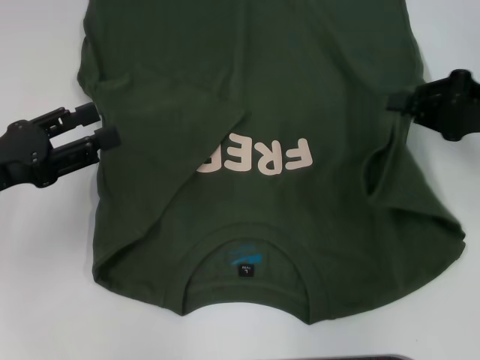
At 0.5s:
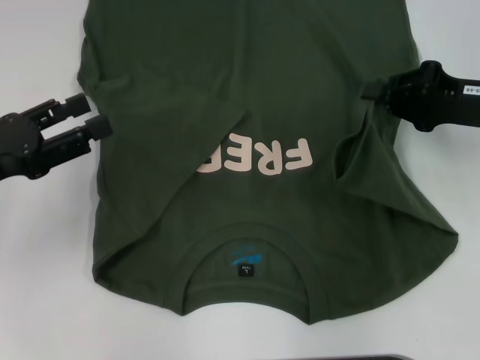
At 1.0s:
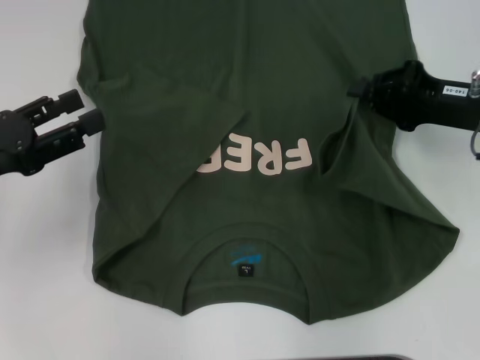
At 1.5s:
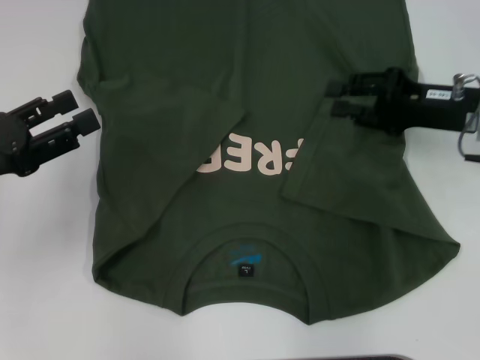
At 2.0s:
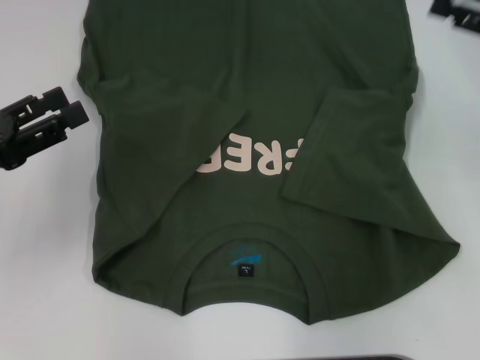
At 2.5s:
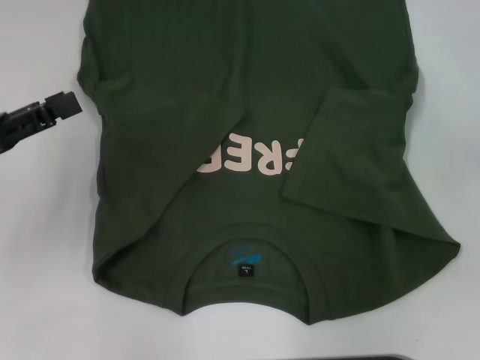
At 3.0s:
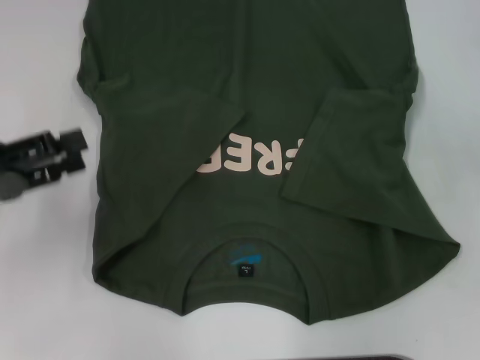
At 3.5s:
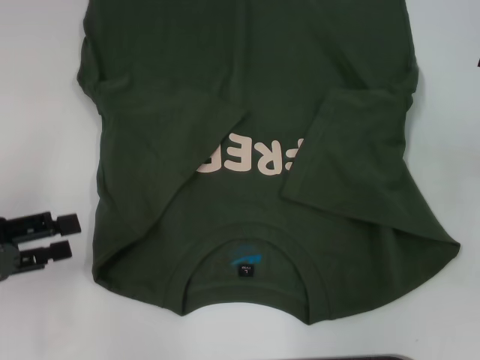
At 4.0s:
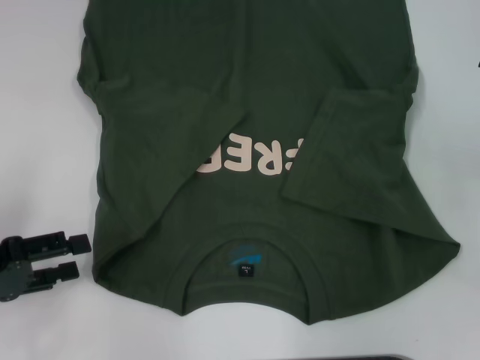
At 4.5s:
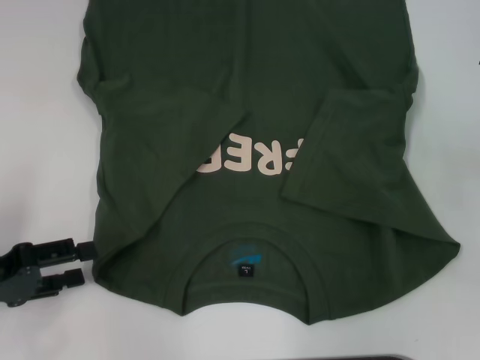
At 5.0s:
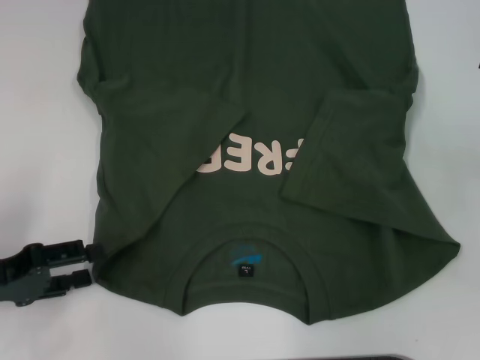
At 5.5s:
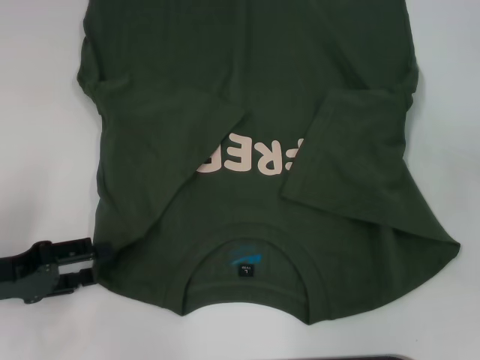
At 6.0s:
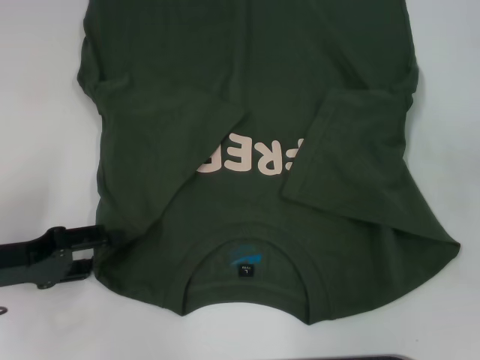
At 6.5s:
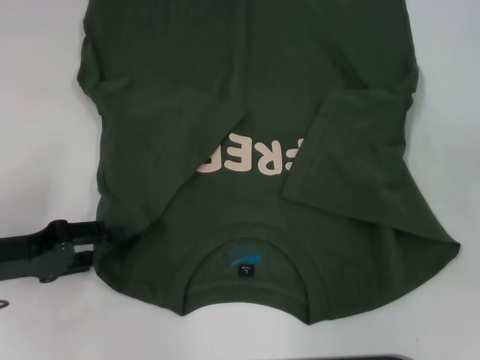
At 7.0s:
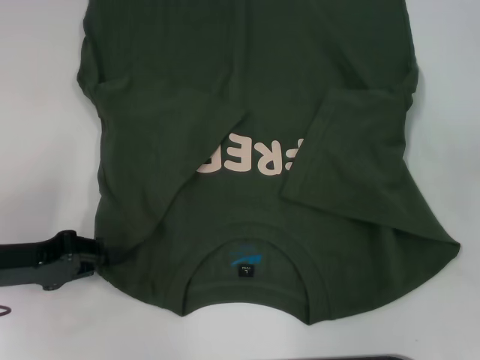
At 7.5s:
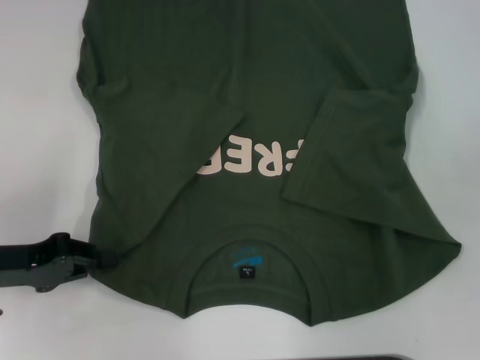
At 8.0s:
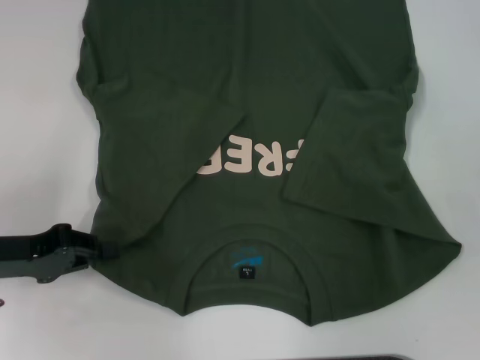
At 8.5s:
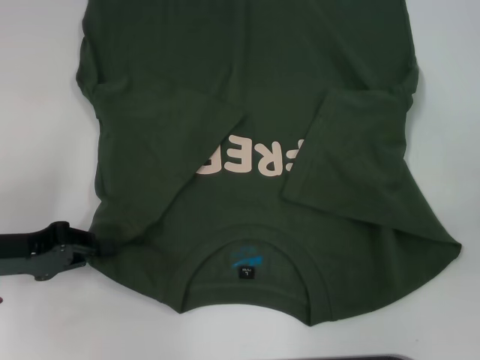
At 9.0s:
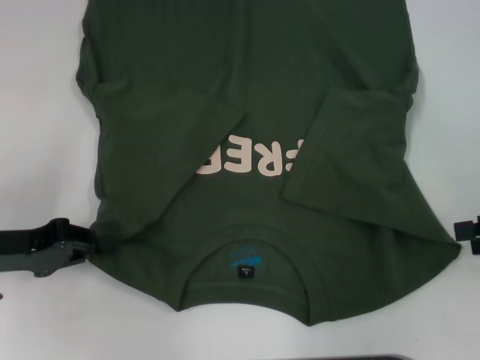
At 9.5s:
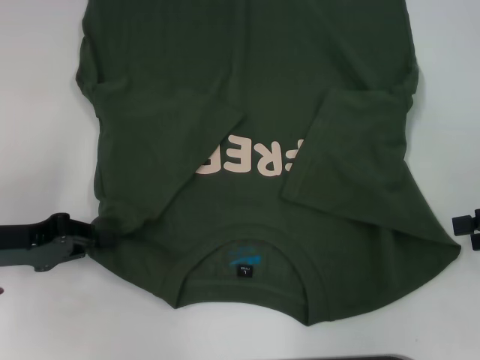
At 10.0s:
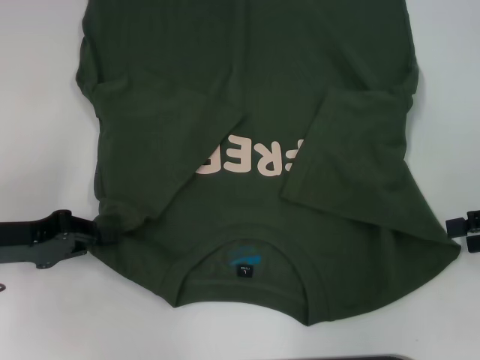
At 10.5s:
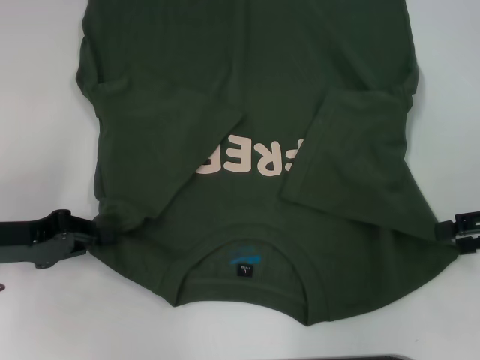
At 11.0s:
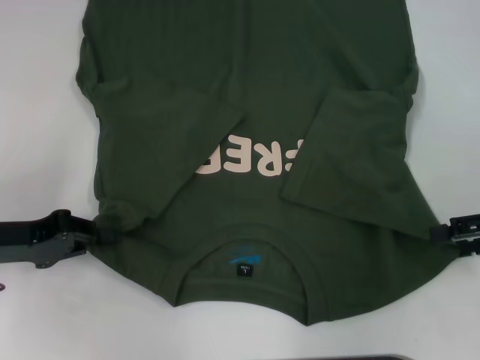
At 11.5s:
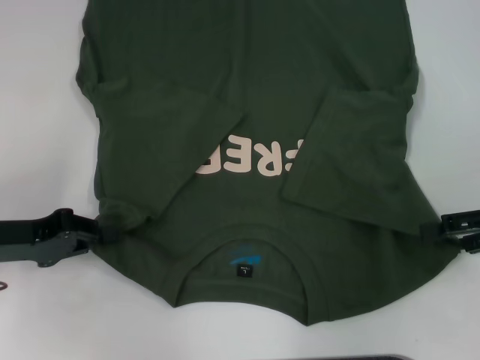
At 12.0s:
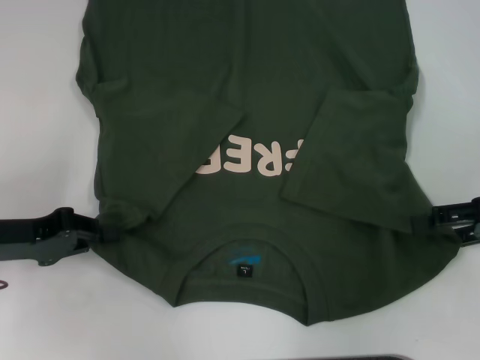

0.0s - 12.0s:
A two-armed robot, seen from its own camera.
Step, 1.5s - 7.5s: Grab the bottom left corner with your left hand.
0.0s - 2.0s: The right gripper opens up.
2.0s - 4.0s: The right gripper changes place by approximately 5 cm, and opens its fingers, while the left gripper moves about 5 cm.
4.0s - 6.0s: There are only small adjustments of the grippers.
6.0s - 8.0s: The left gripper closes up. The right gripper shifts by roughly 5 cm.
8.0s - 10.0s: The right gripper shifts approximately 5 cm downward.
10.0s - 12.0s: The grippers stay close to where they were, moving slightly.

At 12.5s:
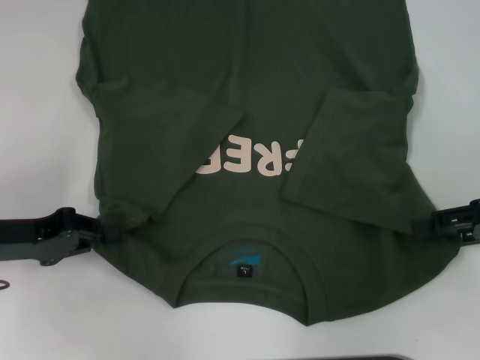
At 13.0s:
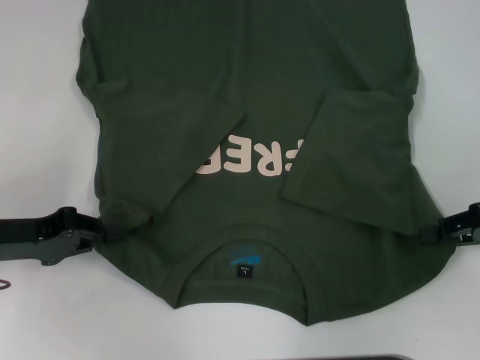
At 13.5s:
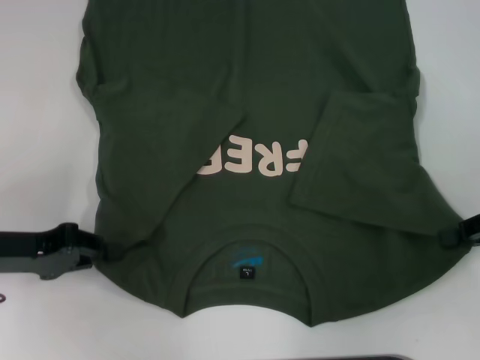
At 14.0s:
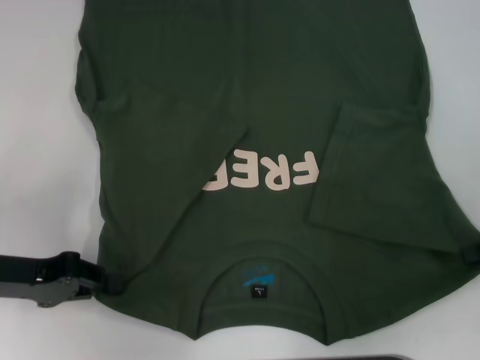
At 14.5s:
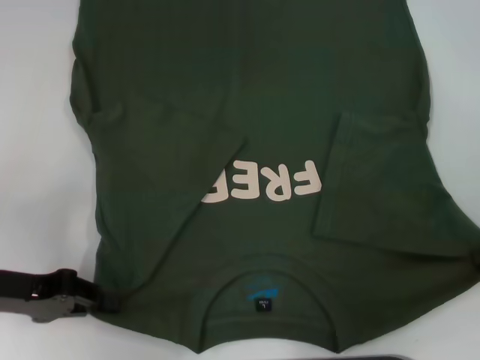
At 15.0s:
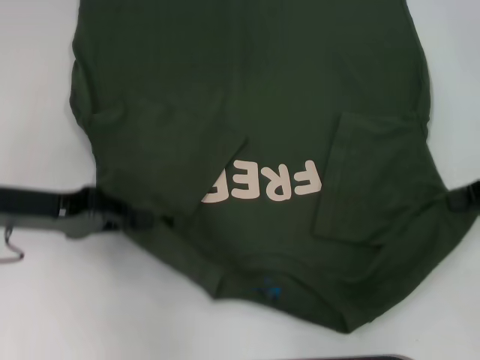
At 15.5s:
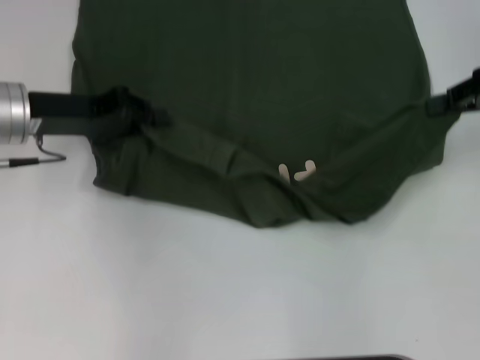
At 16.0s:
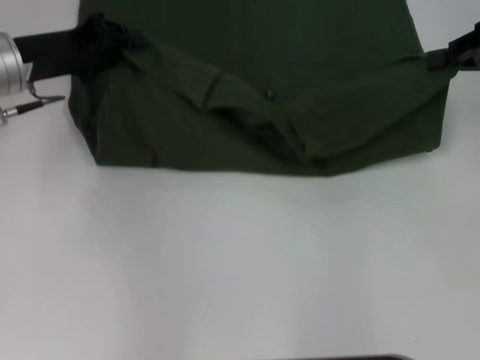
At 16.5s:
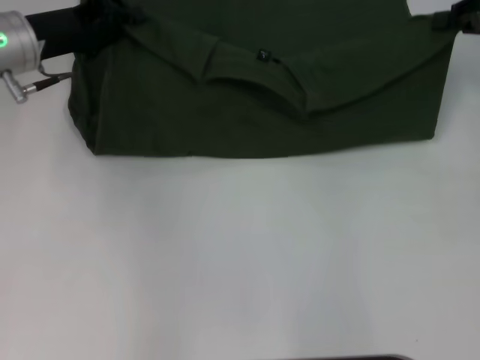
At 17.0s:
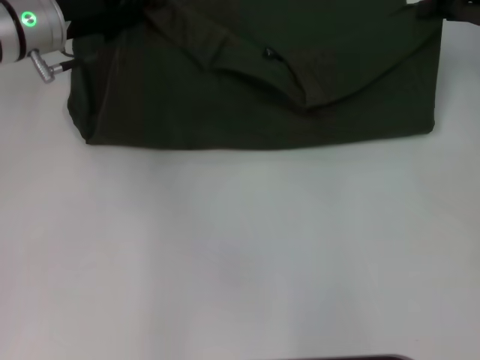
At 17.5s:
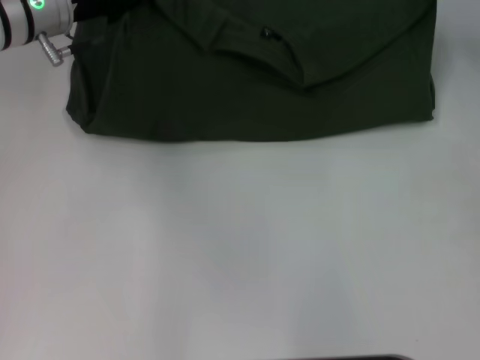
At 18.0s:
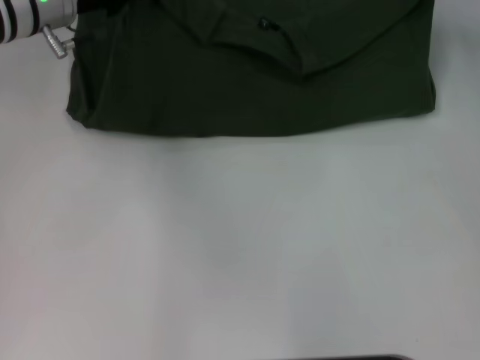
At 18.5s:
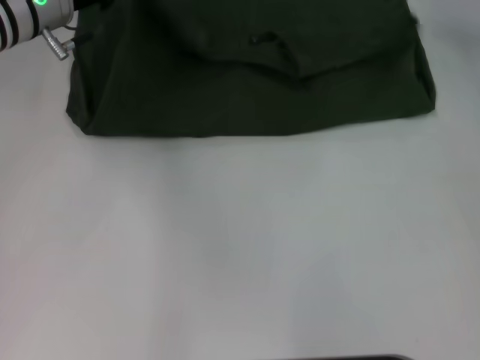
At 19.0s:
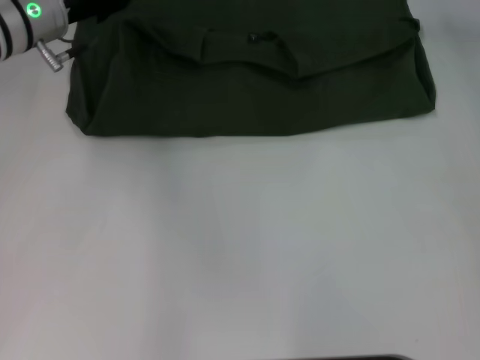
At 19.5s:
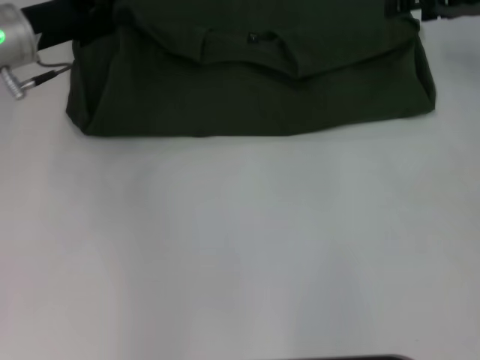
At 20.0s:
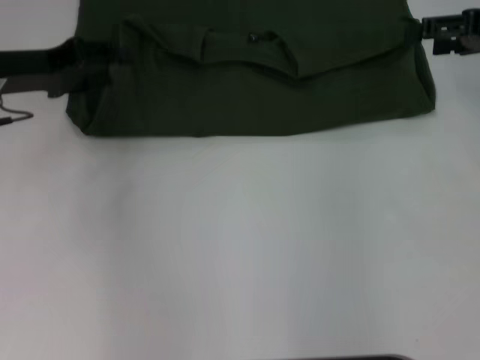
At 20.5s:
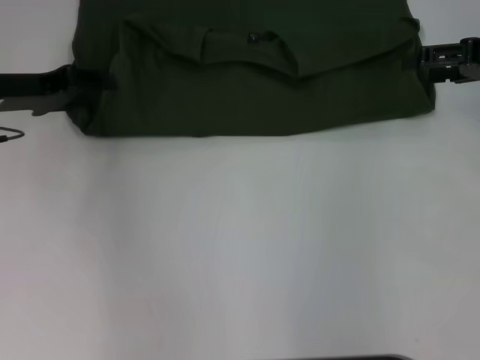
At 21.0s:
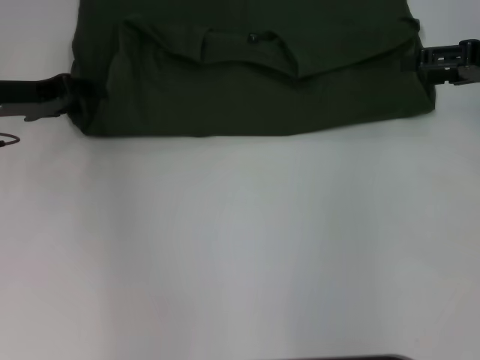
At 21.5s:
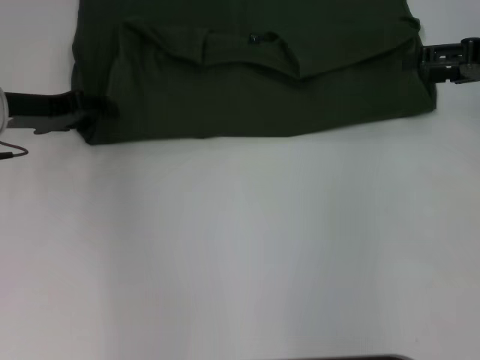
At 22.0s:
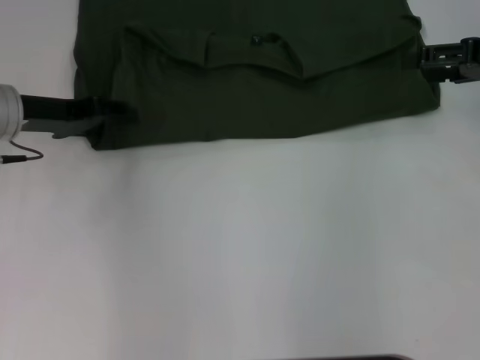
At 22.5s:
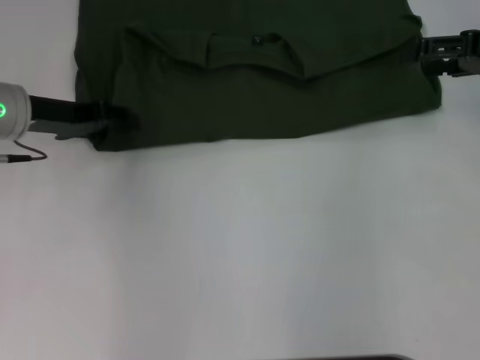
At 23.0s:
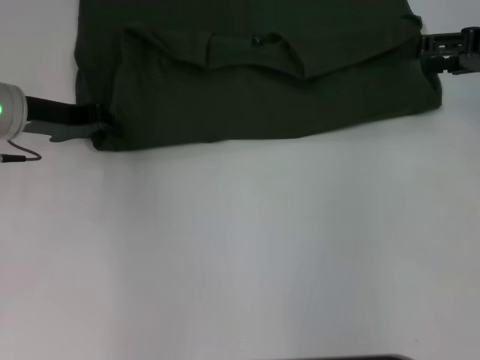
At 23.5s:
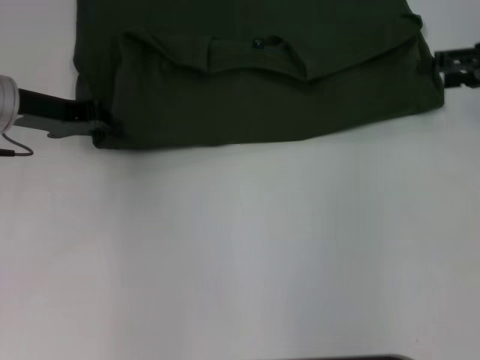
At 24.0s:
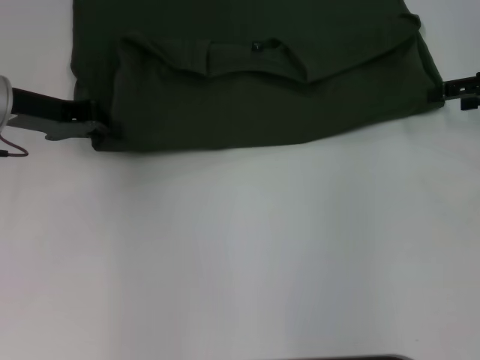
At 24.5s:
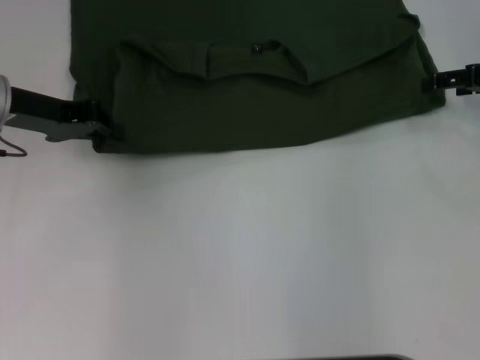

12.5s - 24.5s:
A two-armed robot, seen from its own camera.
Step, 13.5s - 18.5s: Fold the clothes with your left hand.
Step, 13.5s - 18.5s: Fold the clothes with your right hand.
12.5s - 14.5s: The right gripper closes up.
14.5s - 16.5s: The right gripper travels forward and upward by roughly 15 cm. The left gripper heads forward, covering about 15 cm.
16.5s - 18.5s: The left gripper changes place by roughly 5 cm. The right gripper heads forward, covering some 5 cm.
18.5s - 20.5s: The right gripper goes roughly 10 cm backward, and opens up; the left gripper goes about 10 cm to the left and backward, and opens up.
20.5s - 22.5s: The grippers stay close to where they were, moving slightly.
22.5s - 24.5s: The left gripper closes up.

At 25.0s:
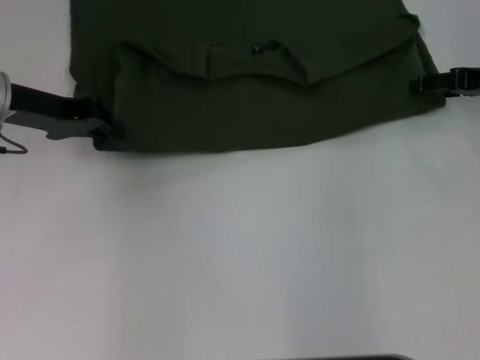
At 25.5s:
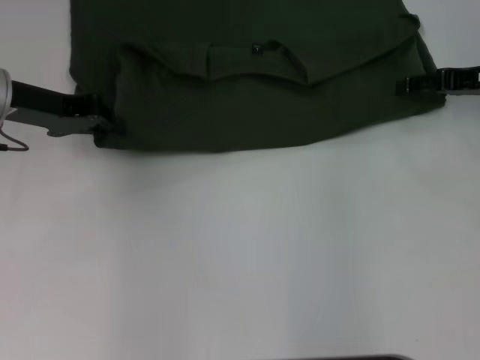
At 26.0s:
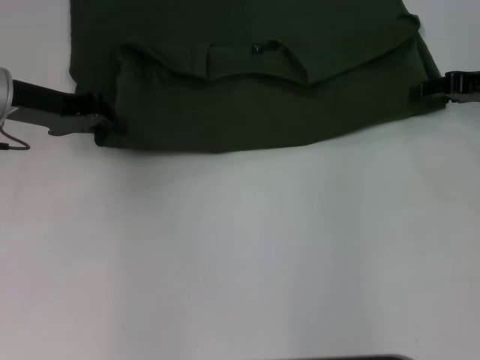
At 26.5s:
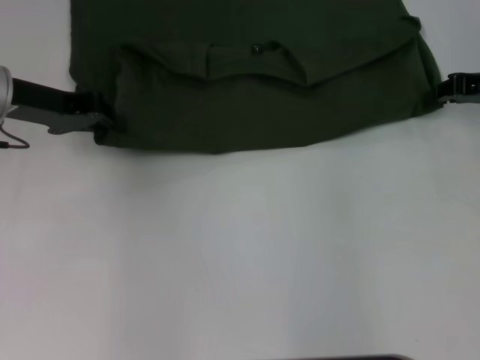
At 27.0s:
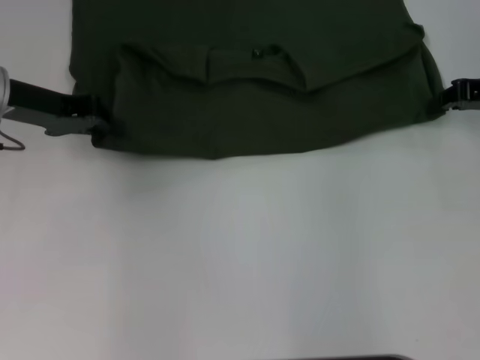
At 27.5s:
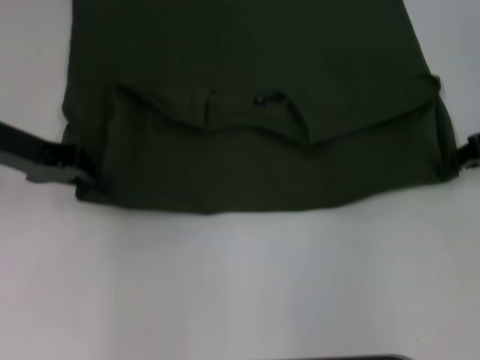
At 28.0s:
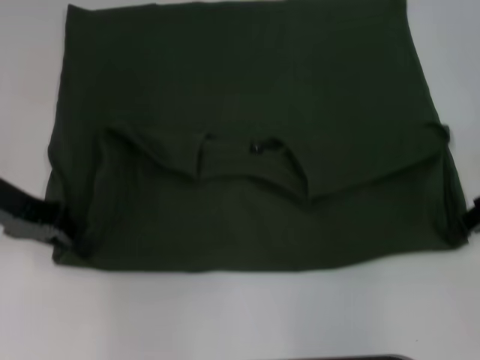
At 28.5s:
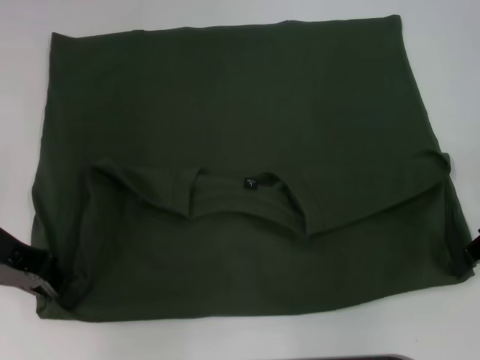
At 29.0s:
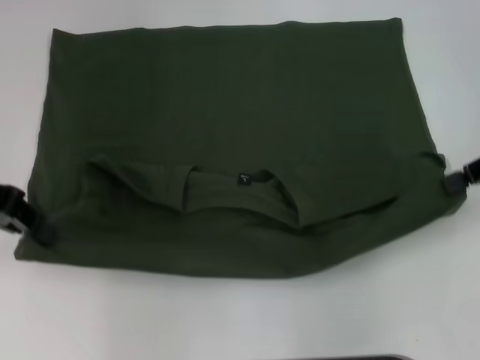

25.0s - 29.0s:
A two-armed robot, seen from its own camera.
Step, 25.0s - 28.5s: Pull the clothes with your left hand.
Step, 25.0s - 28.5s: Pull the clothes with your right hand.
25.0s - 27.0s: The right gripper closes its fingers.
27.0s - 29.0s: The left gripper moves backward, about 5 cm; the right gripper moves backward and upward, approximately 5 cm.
